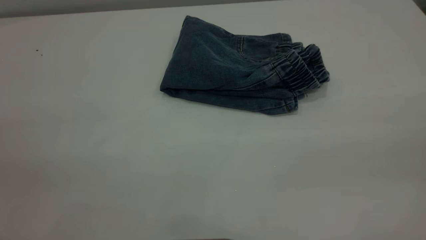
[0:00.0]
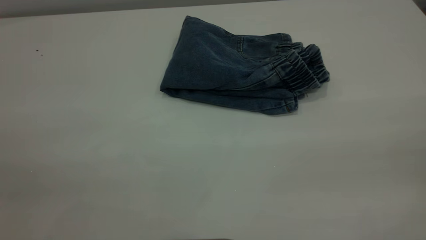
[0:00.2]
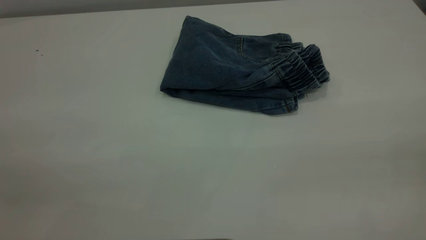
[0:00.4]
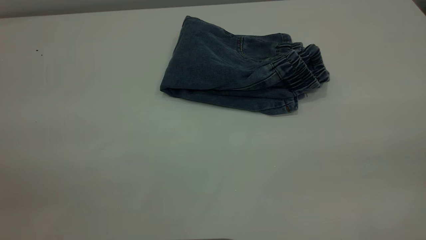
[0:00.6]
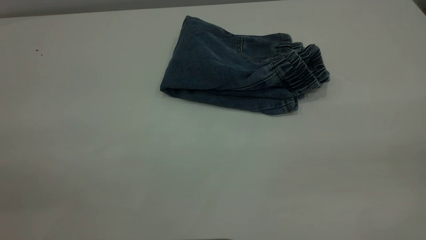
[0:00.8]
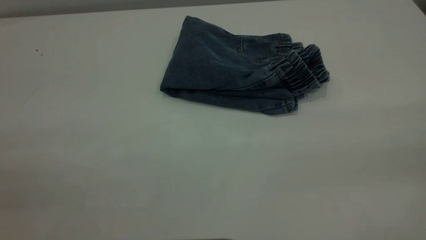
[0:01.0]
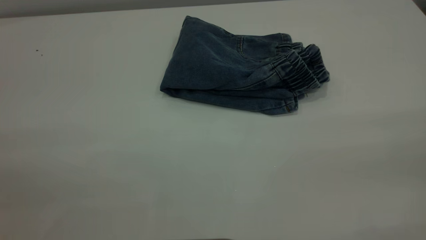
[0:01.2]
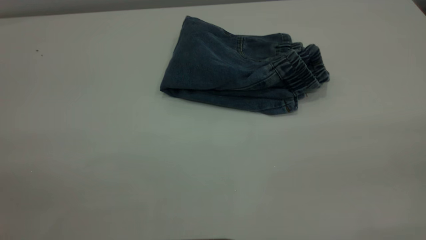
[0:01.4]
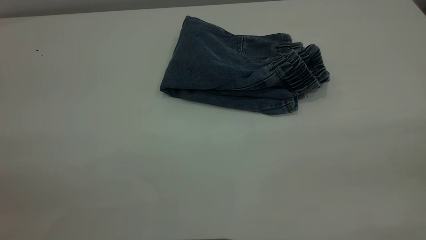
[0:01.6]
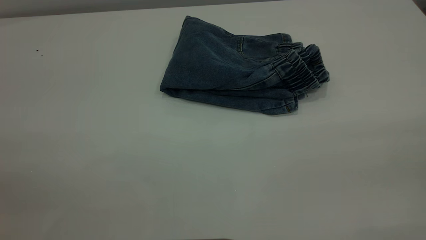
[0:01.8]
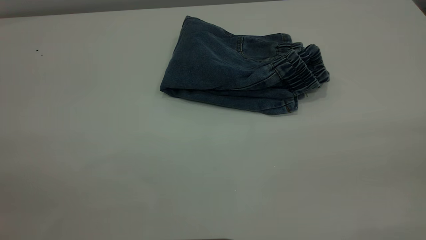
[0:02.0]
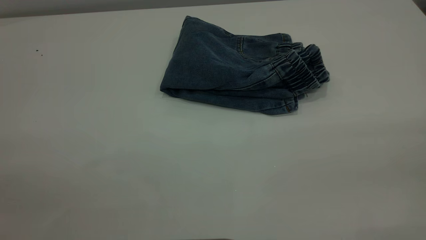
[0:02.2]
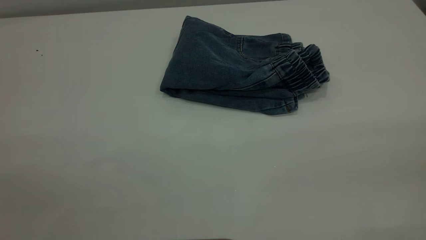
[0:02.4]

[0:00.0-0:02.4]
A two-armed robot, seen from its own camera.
0:01.2 to 0:02.4: Neither gripper changes place.
